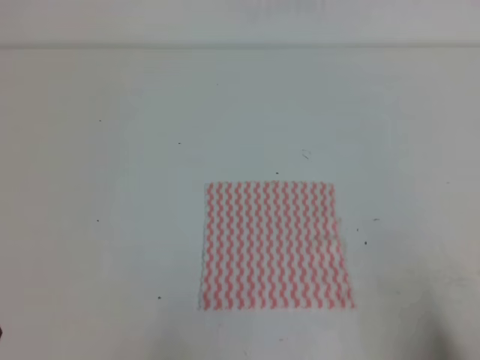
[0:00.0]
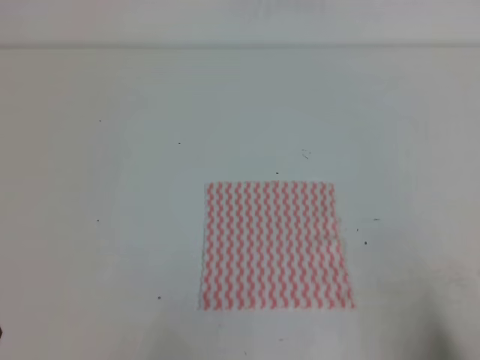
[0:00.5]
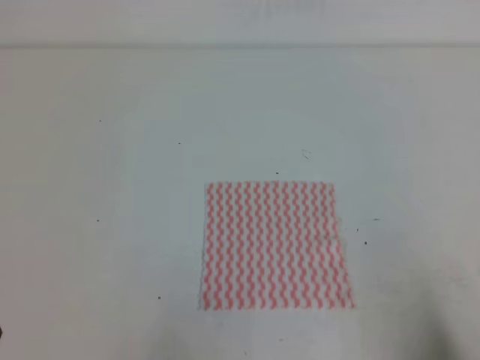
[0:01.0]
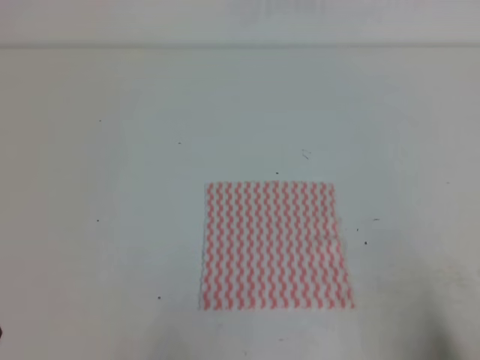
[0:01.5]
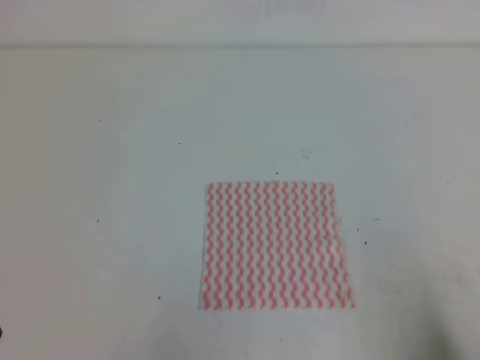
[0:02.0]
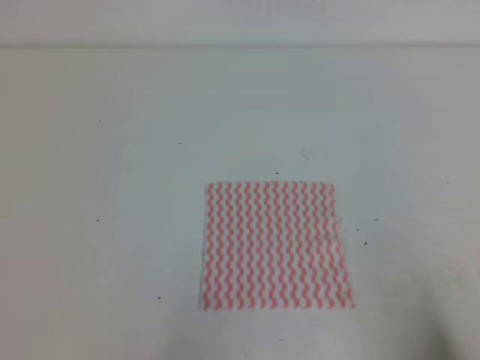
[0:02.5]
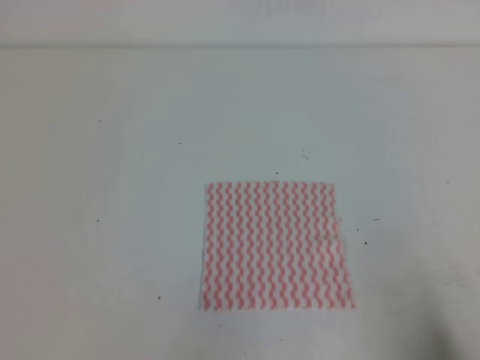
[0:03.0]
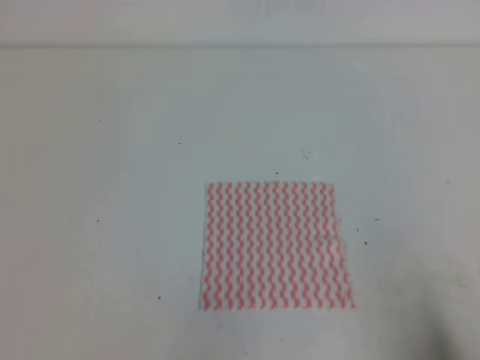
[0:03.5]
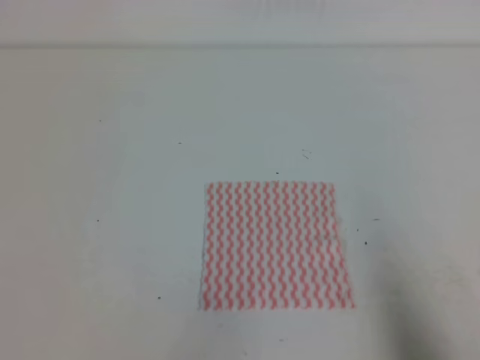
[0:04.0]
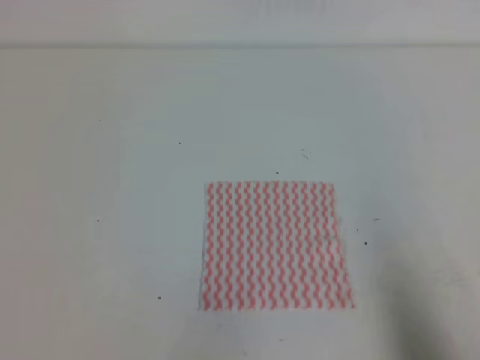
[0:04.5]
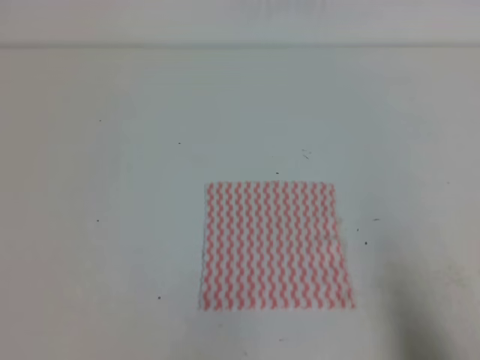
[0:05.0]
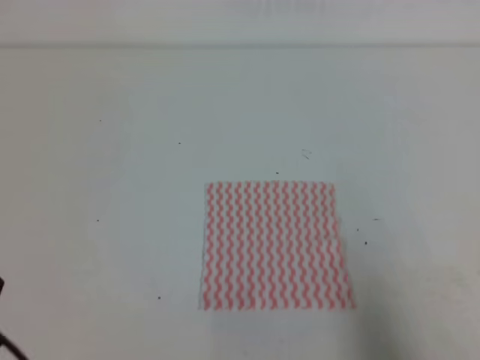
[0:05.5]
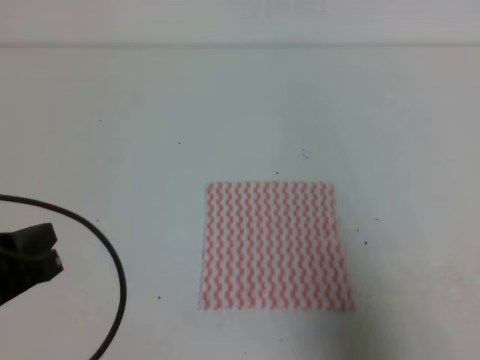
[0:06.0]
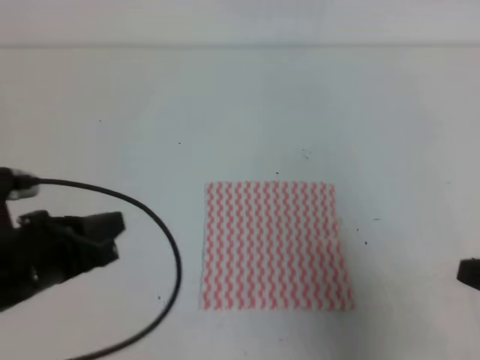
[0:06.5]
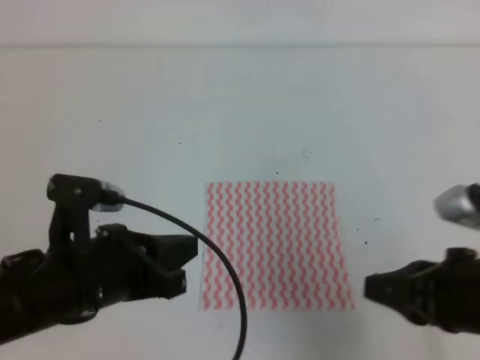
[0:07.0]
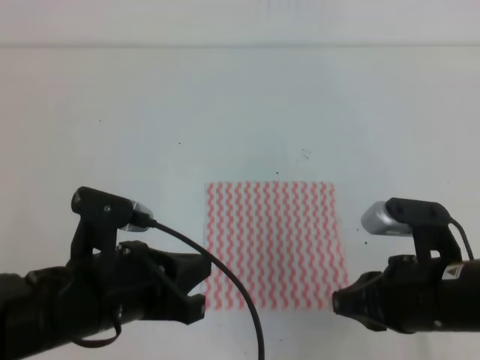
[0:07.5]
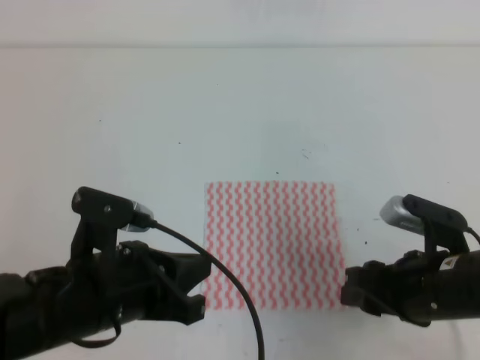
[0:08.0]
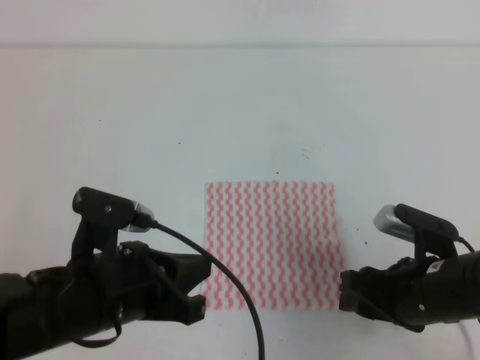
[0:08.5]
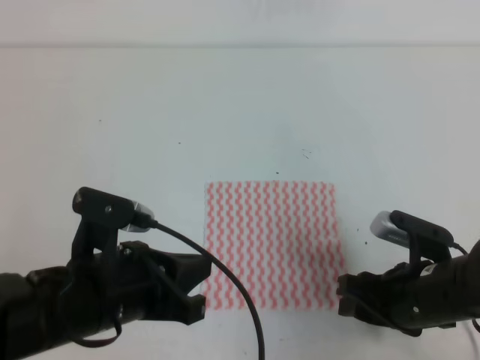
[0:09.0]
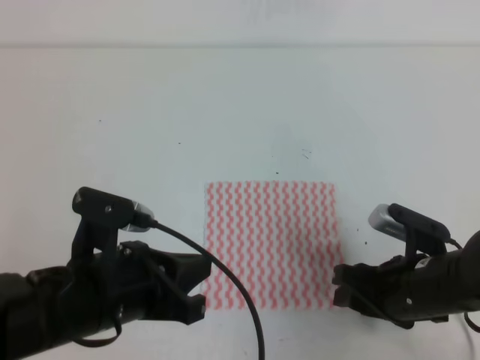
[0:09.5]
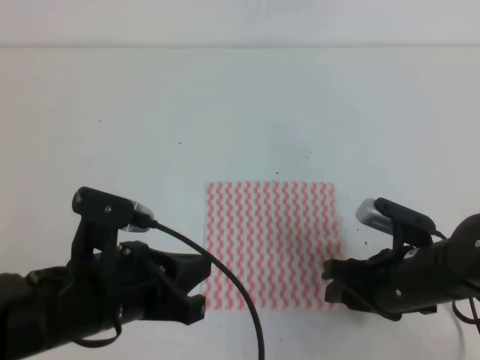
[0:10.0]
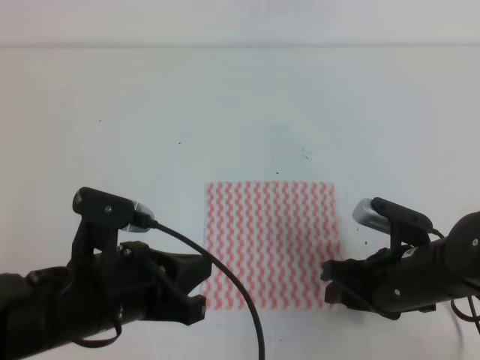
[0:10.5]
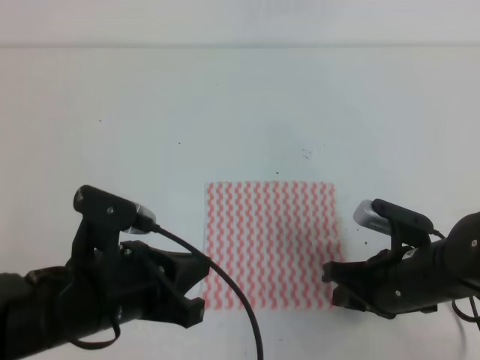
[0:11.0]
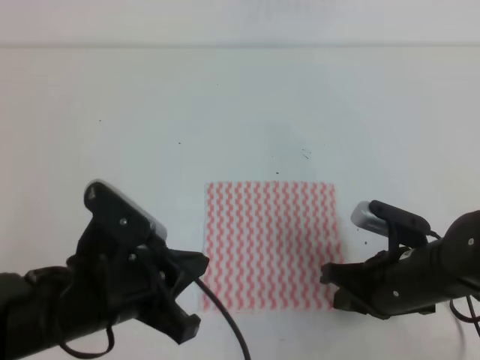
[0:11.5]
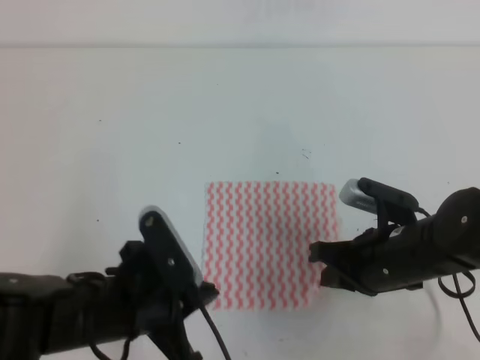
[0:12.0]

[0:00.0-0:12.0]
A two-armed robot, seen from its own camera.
0:00.0 to 0:02.0: Both grippers stay put.
0:04.0 to 0:06.0: The left gripper is displaced forward and upward by roughly 10 cm; the right gripper shifts about 5 cm upward.
0:06.0 to 0:08.0: The right gripper goes approximately 15 cm to the left, forward and downward, and opens up. The left gripper moves to the right, about 10 cm.
0:08.0 to 0:10.0: The right gripper ends up some 5 cm from where it was.
0:10.0 to 0:12.0: The right gripper closes up.

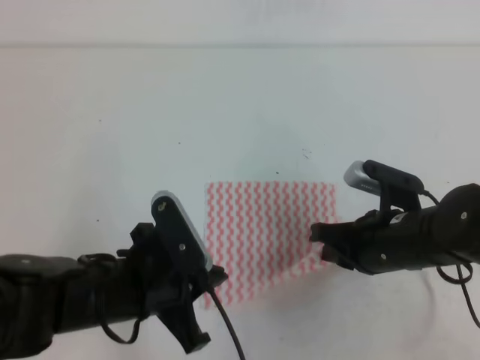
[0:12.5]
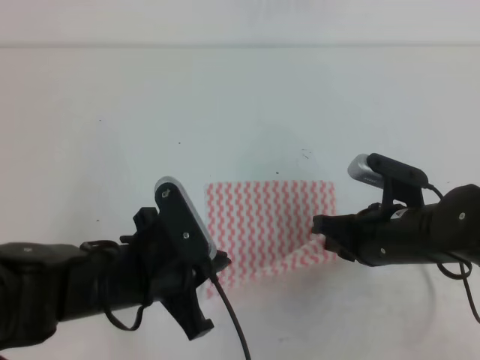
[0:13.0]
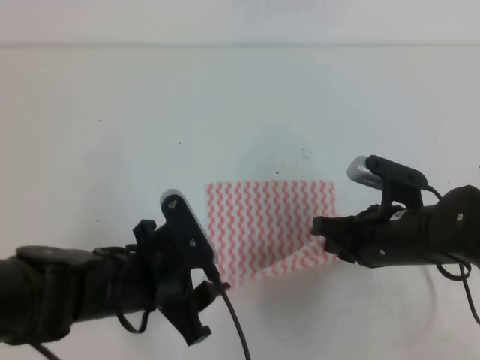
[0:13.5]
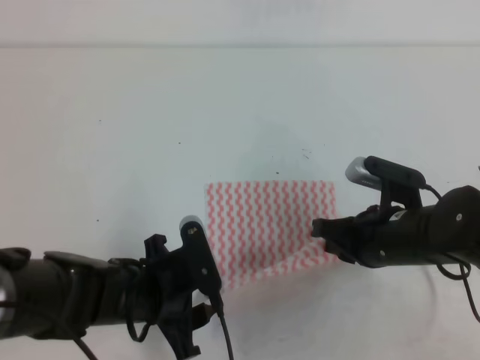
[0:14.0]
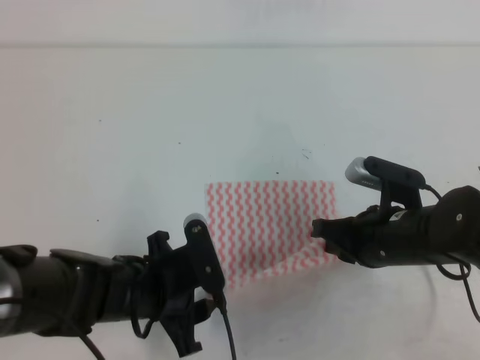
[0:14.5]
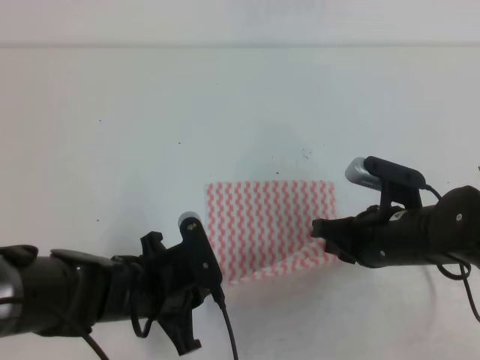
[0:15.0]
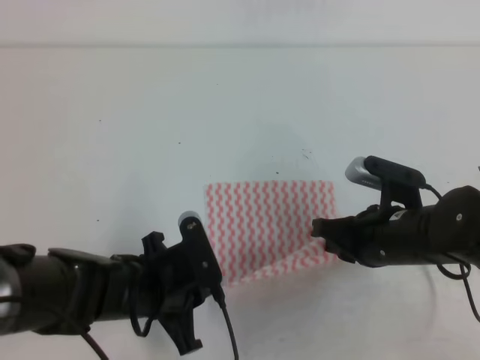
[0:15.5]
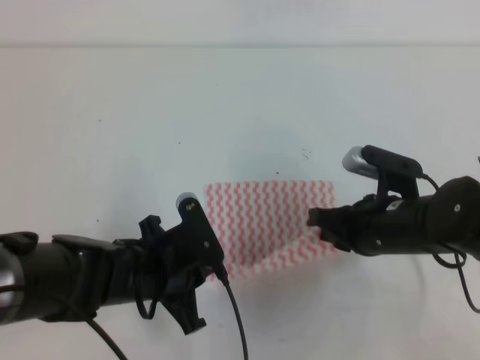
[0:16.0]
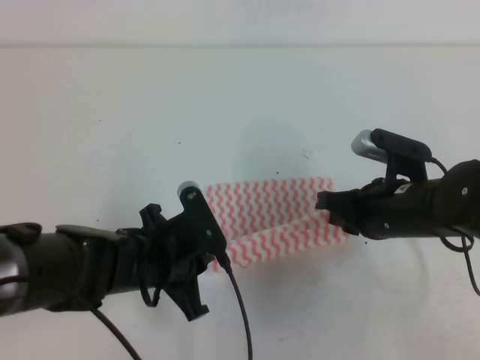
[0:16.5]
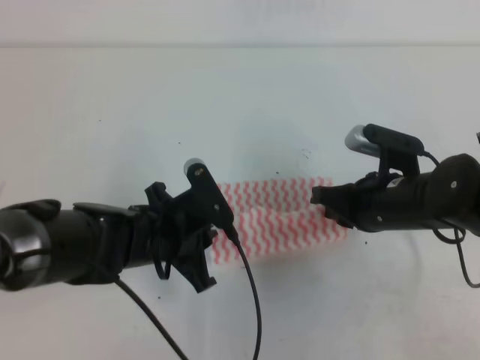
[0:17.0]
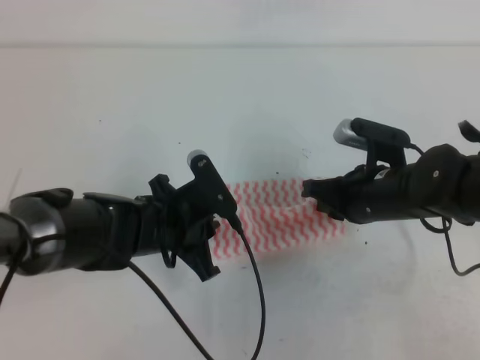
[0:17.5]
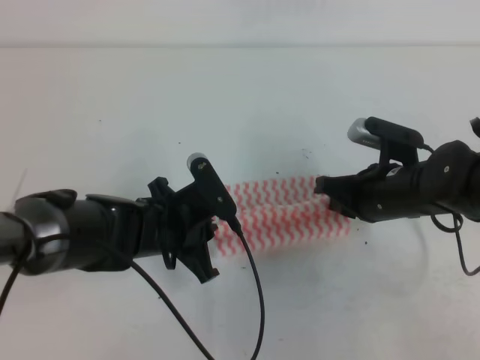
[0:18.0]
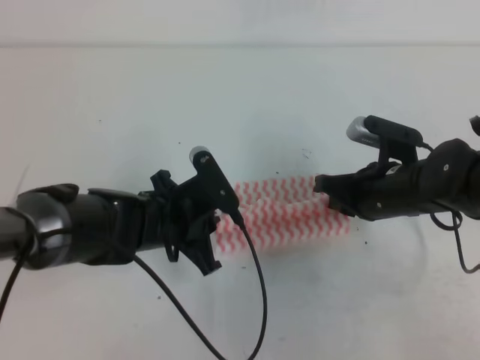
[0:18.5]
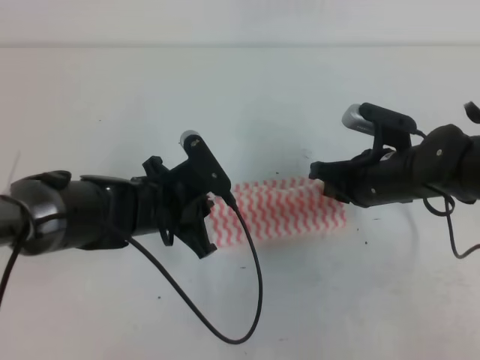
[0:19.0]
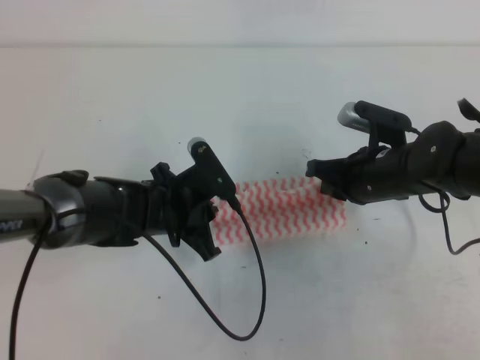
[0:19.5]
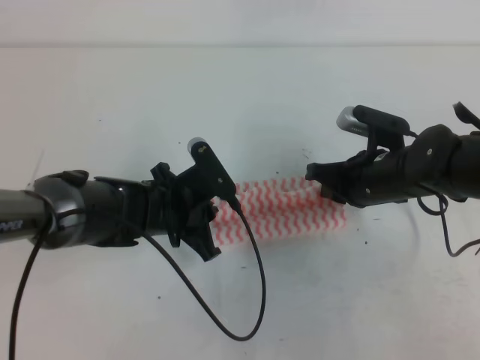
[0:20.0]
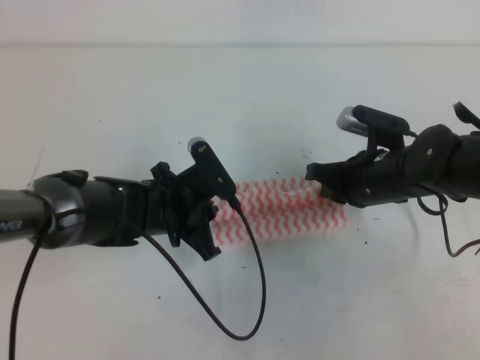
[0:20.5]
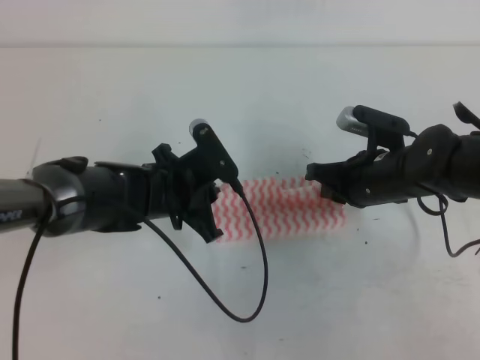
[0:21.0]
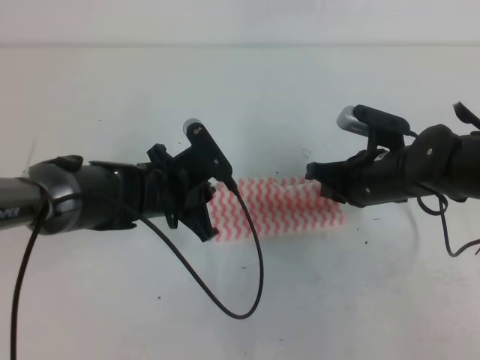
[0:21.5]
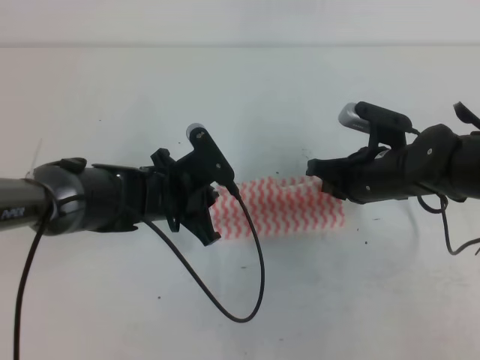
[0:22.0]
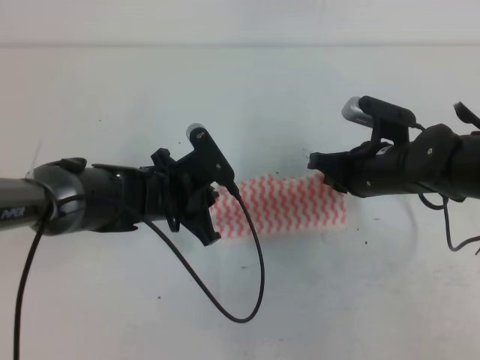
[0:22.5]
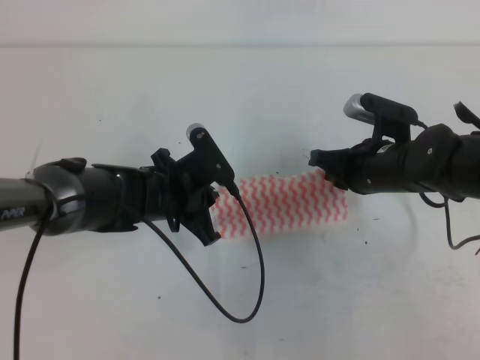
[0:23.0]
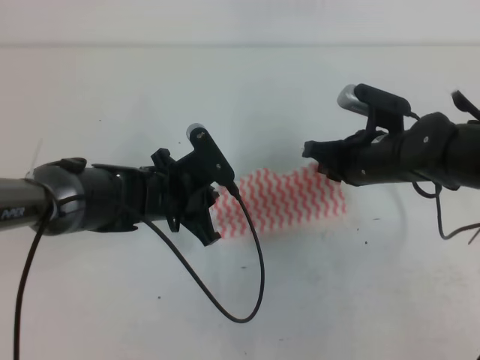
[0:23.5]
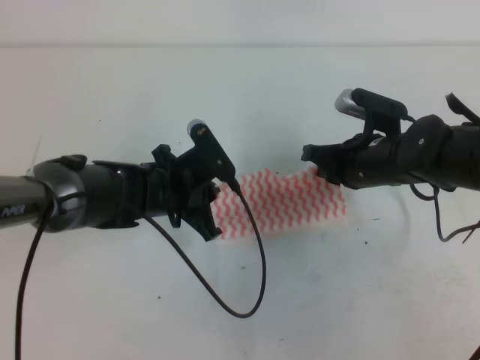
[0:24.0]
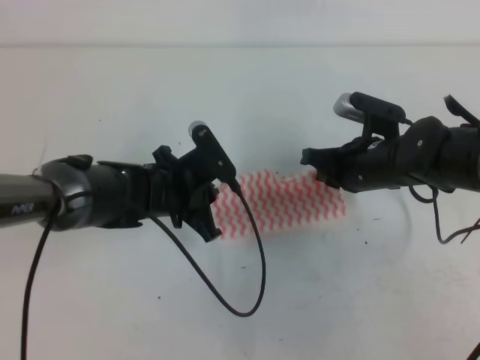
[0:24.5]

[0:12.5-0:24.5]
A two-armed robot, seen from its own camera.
Step, 0:12.5 to 0:19.0: Fold the towel upwards with the both gripper.
Step, 0:19.5 to 0:22.5: Tidy up the towels.
0:12.5 to 0:14.5: The left gripper is displaced downward by roughly 5 cm, and opens.
0:14.5 to 0:16.5: The left gripper closes.
0:16.5 to 0:18.5: The left gripper shifts by roughly 5 cm.
0:18.5 to 0:22.5: There are only small adjustments of the grippers.
0:22.5 to 0:24.5: The two grippers keep their place.

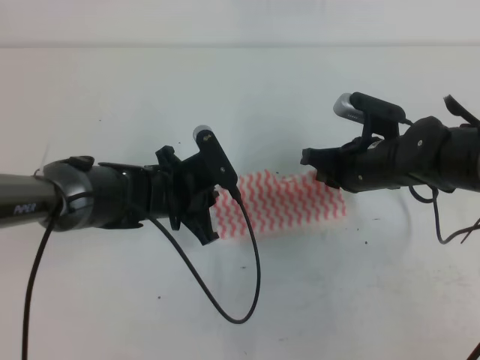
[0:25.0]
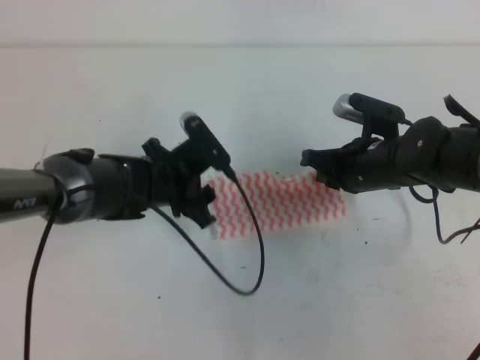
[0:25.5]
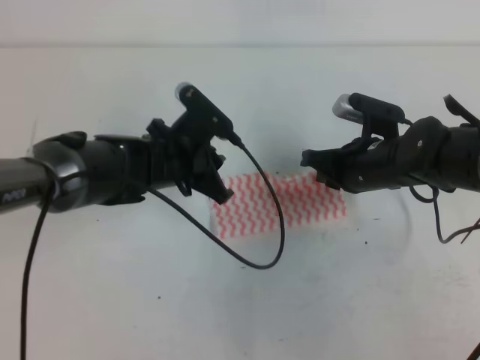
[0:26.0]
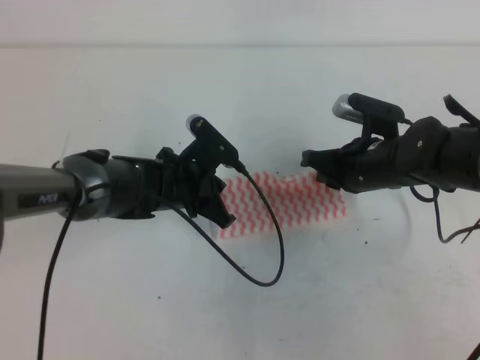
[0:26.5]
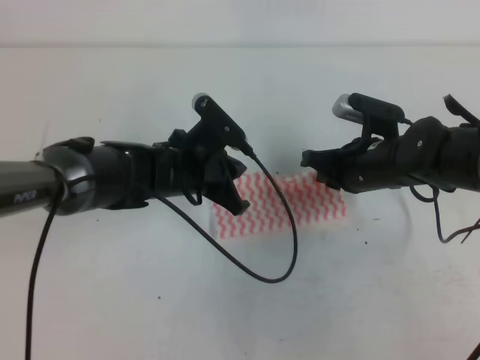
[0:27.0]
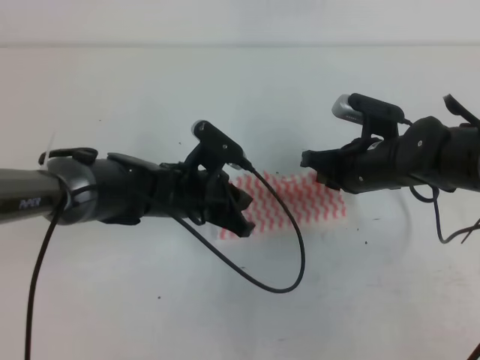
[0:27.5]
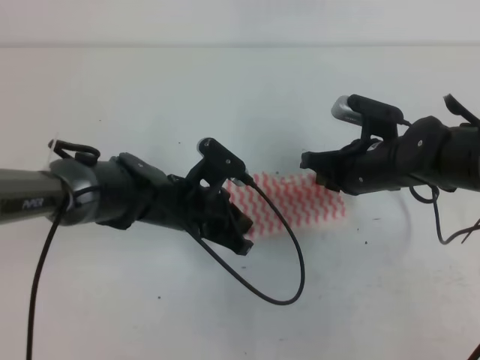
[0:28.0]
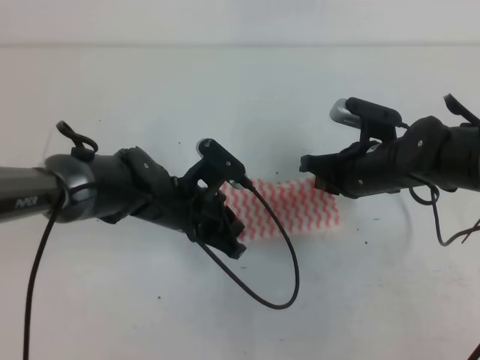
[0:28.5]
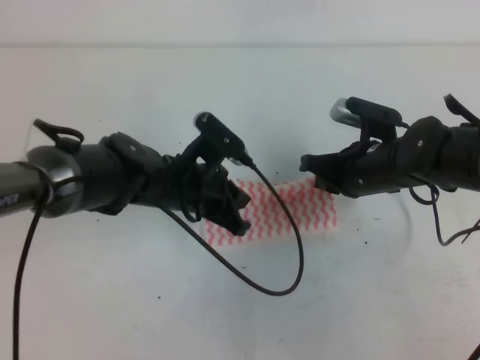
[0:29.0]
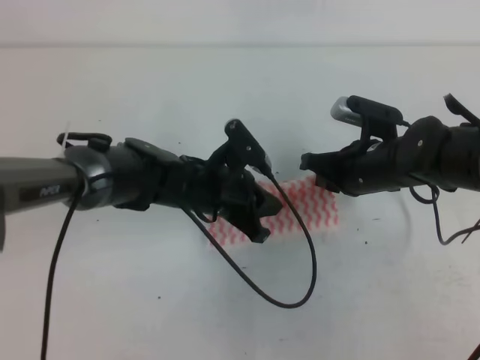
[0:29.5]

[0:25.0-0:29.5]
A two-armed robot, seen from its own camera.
0:25.0 to 0:27.0: The left gripper opens, then closes once more.
